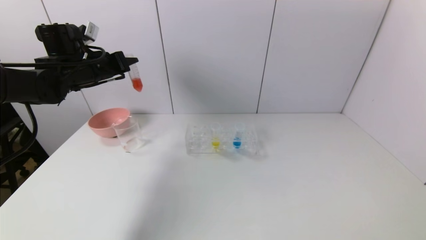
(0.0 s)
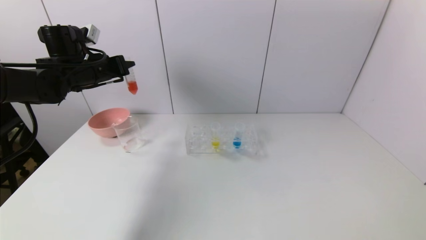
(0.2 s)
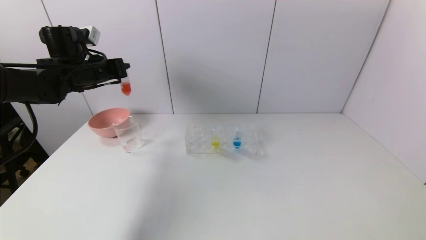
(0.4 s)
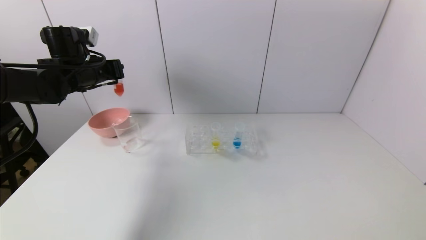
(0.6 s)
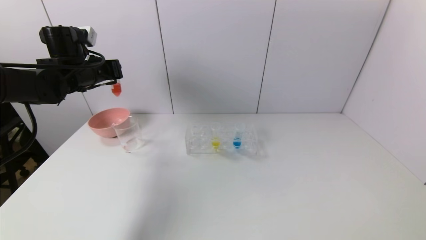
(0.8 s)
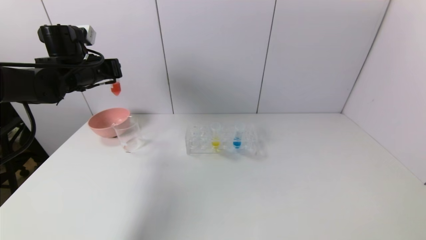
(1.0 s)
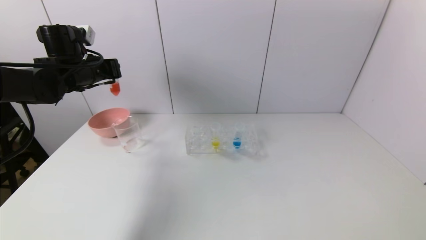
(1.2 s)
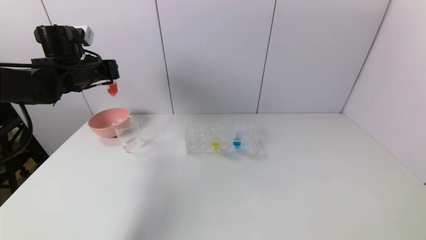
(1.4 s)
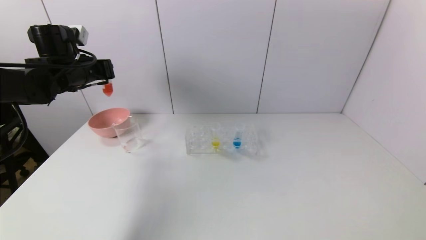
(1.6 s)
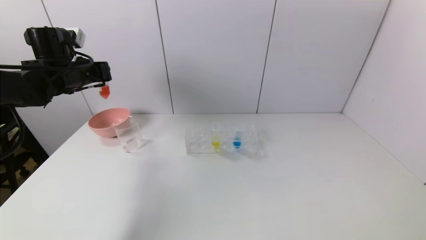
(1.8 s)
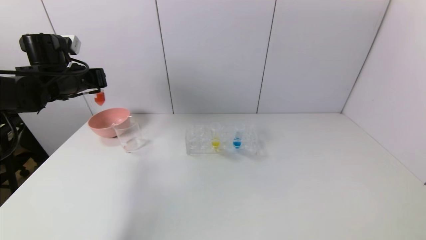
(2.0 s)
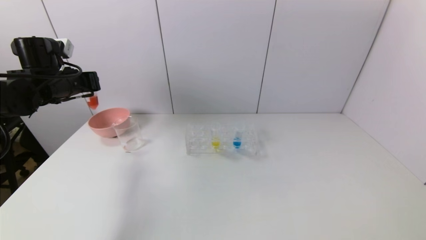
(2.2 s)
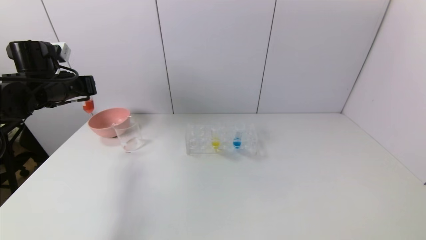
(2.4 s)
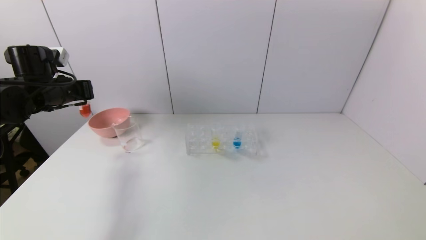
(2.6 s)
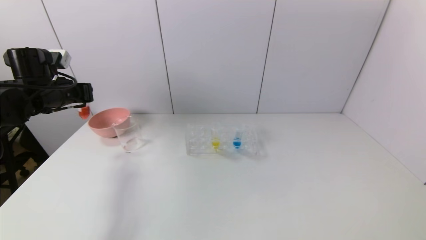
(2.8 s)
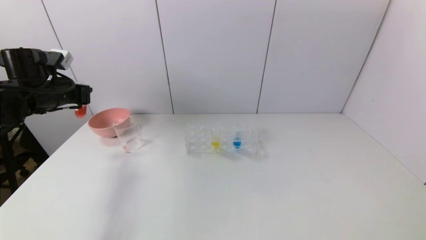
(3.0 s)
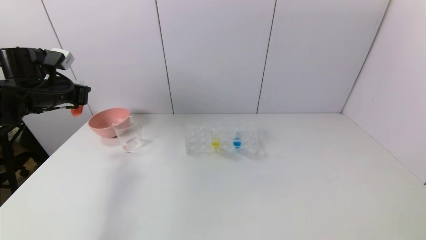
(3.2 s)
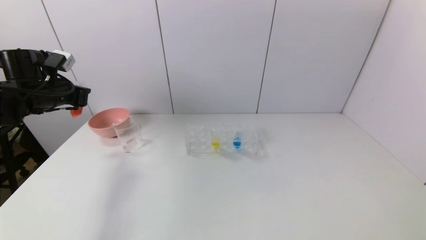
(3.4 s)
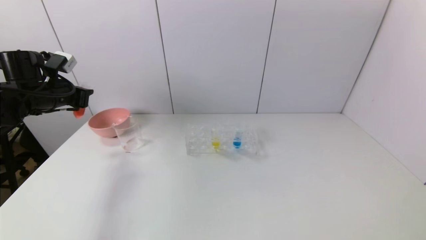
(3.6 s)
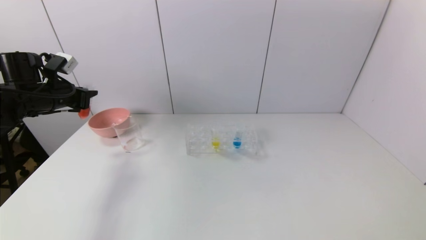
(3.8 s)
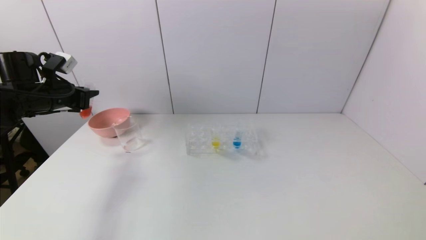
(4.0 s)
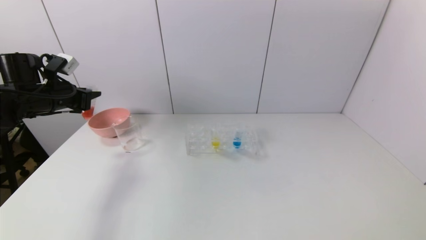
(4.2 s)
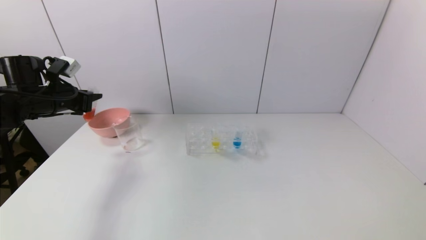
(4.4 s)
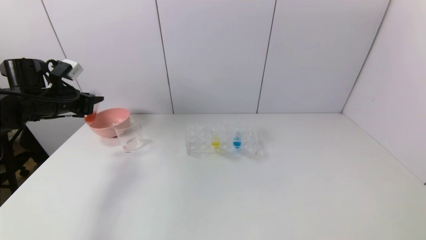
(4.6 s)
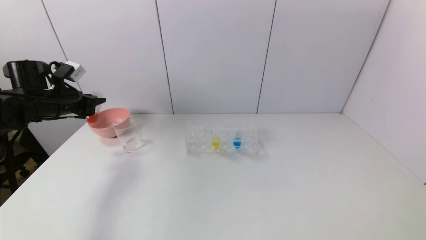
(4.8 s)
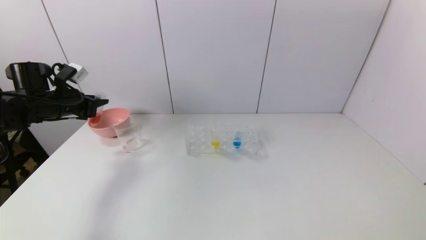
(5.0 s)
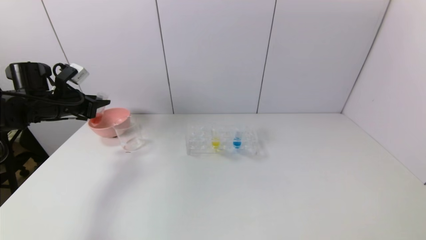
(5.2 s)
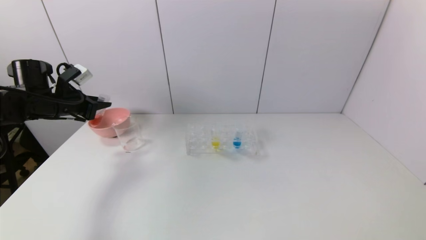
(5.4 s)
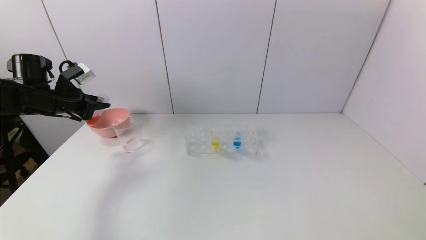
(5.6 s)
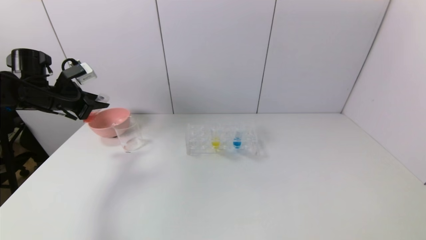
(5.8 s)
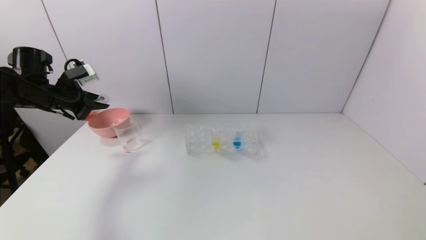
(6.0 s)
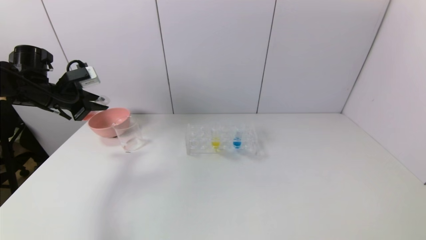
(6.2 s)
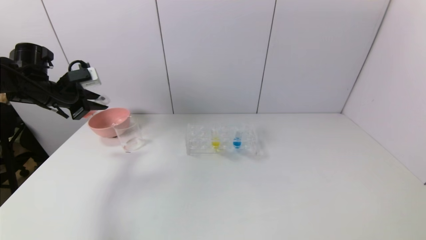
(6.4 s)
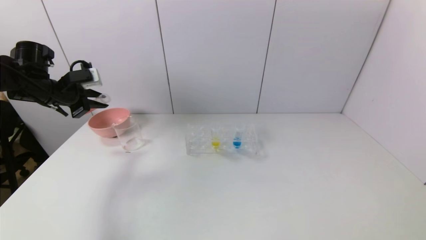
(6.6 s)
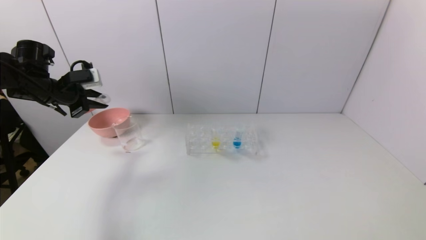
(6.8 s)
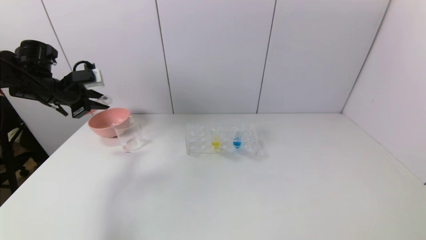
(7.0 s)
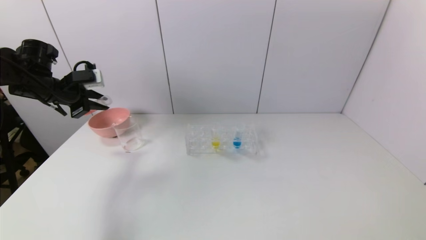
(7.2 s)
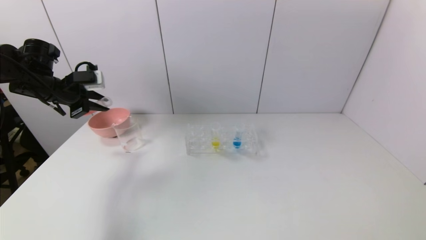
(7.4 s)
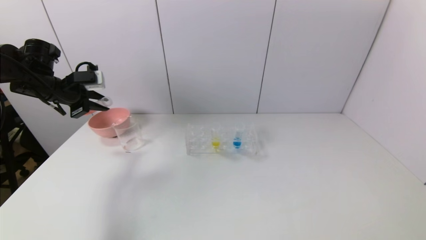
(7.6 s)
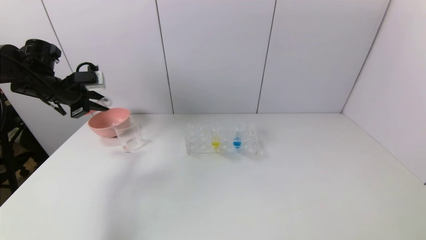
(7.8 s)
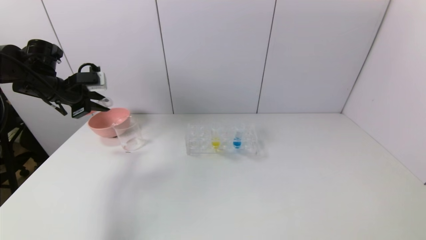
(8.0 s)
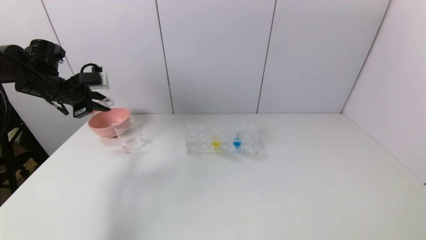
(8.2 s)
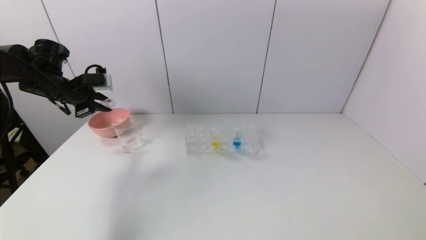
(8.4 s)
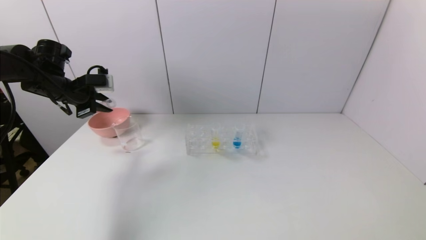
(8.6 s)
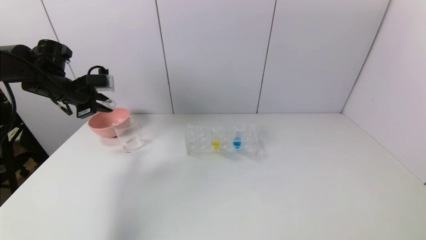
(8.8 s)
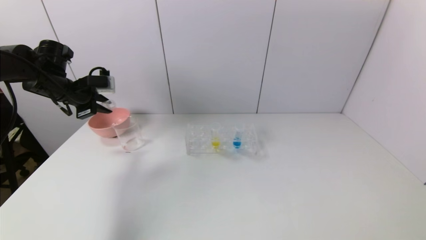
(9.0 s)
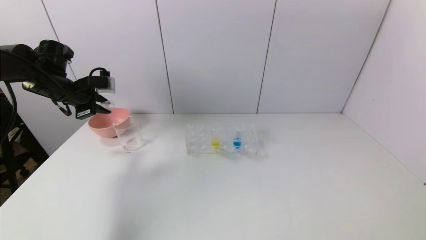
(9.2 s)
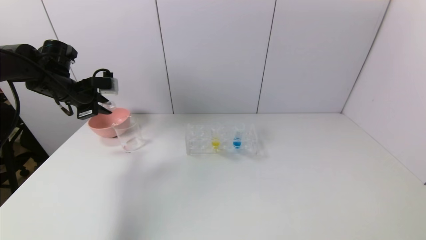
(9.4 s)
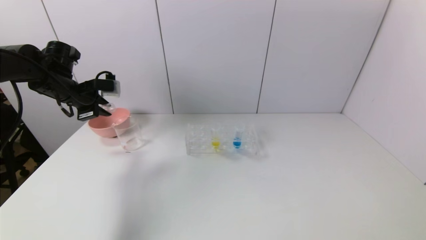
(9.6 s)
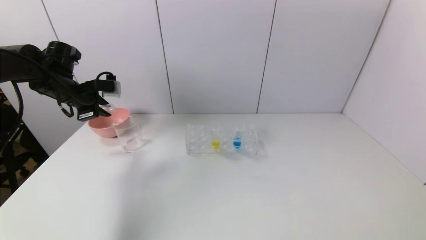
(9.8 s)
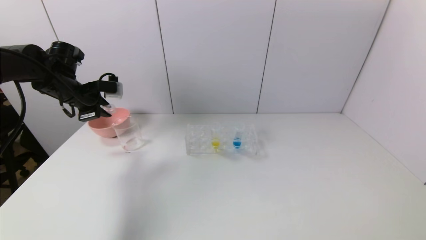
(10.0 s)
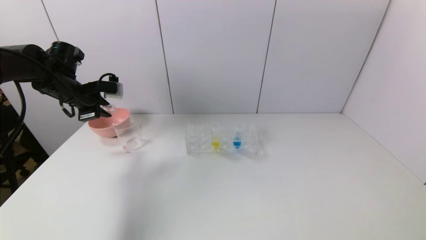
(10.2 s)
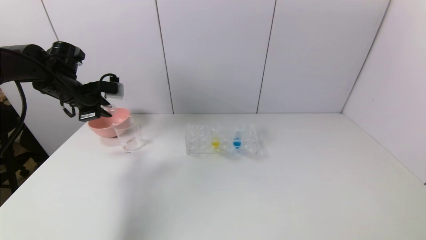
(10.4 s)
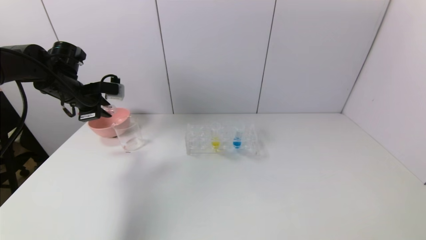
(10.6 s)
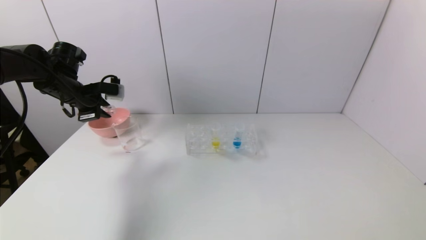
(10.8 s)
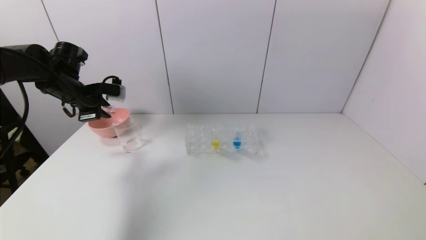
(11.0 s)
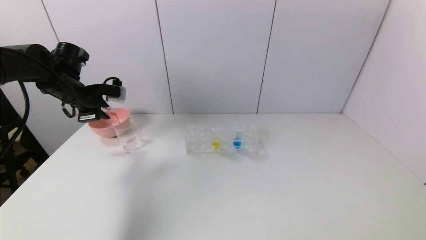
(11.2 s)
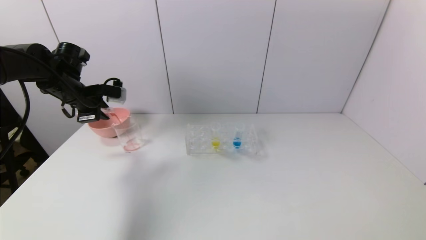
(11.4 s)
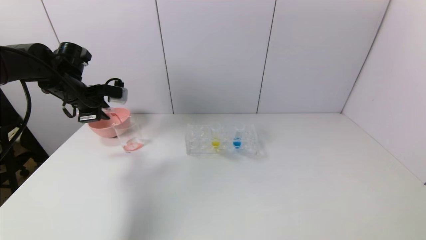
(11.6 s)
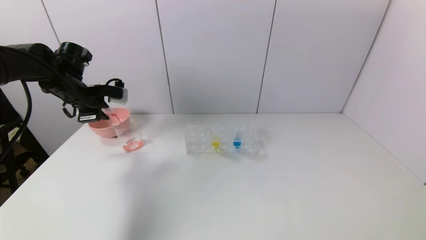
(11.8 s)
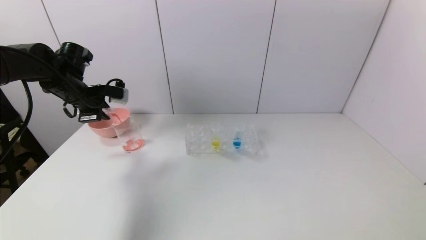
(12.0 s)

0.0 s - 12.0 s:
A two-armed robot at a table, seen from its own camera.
Task of the whole recording: pick up the test tube with red pigment and the test tube with blue pigment by grippers and pour them into the container.
1.6 s - 3.0 s: The left gripper travels to the left by approximately 5 cm.
3.0 s - 4.4 s: There are only small adjustments of the grippers.
7.6 s - 10.4 s: The grippers make only small movements.
10.4 s - 12.0 s: There are only small adjustments of the grippers.

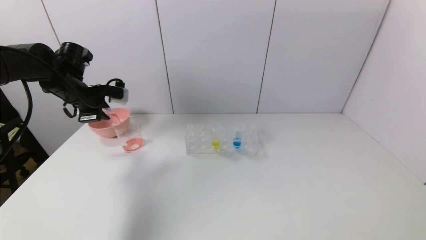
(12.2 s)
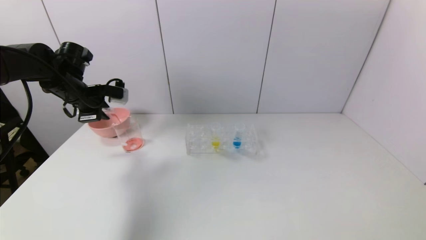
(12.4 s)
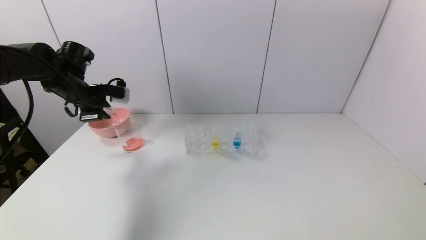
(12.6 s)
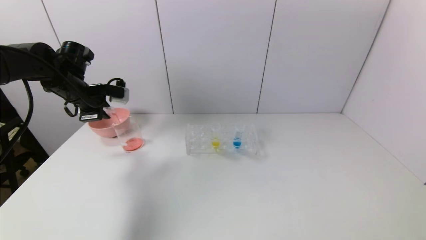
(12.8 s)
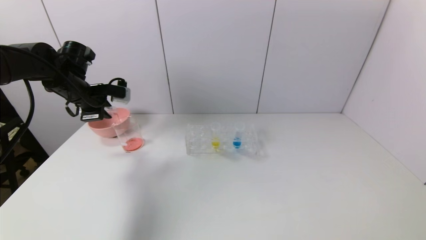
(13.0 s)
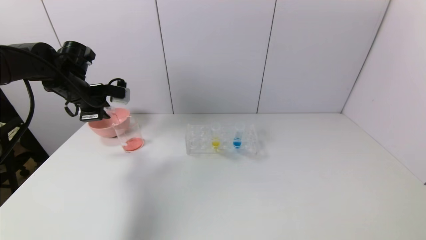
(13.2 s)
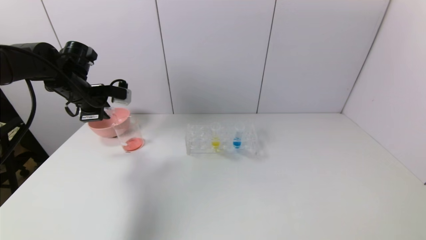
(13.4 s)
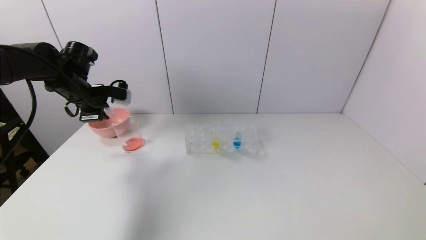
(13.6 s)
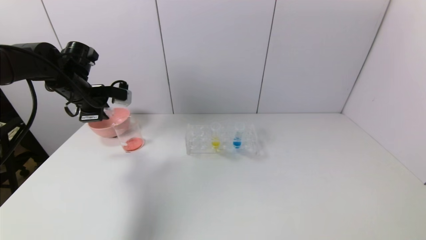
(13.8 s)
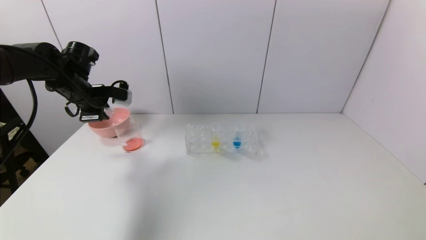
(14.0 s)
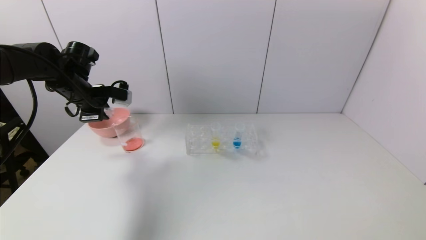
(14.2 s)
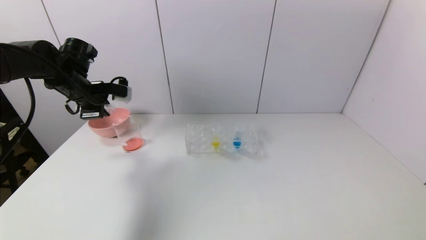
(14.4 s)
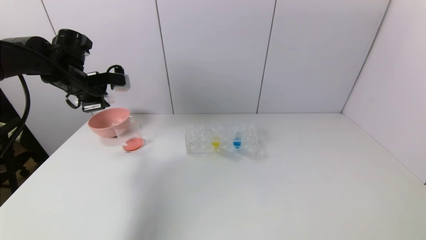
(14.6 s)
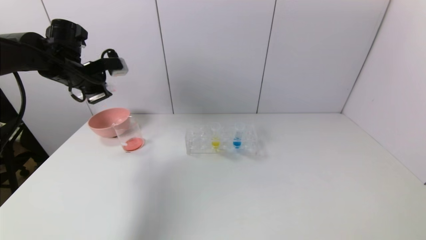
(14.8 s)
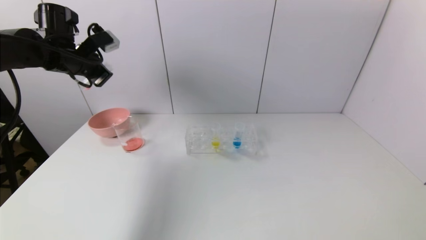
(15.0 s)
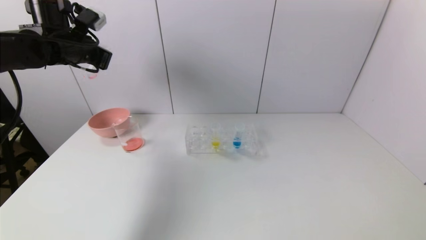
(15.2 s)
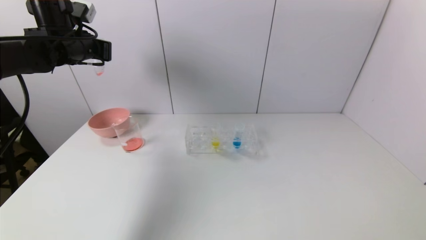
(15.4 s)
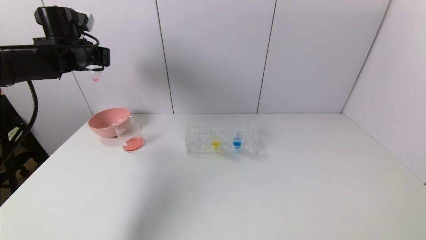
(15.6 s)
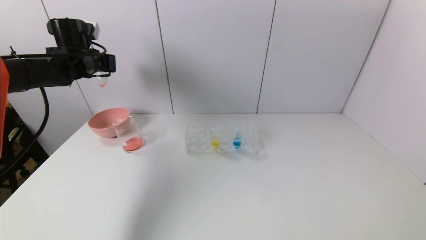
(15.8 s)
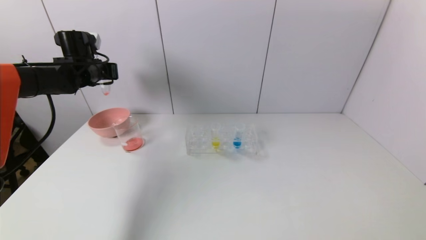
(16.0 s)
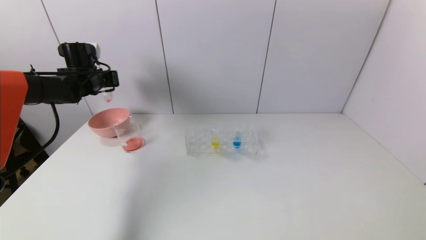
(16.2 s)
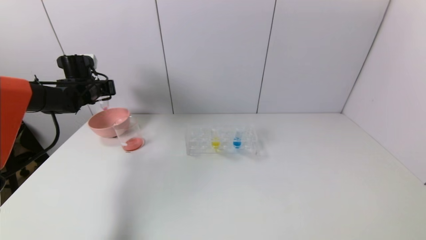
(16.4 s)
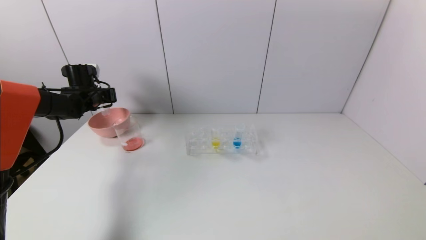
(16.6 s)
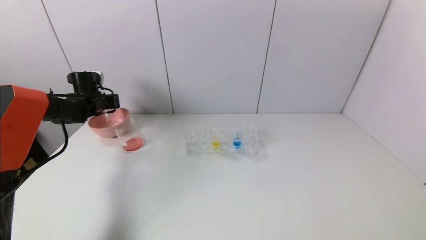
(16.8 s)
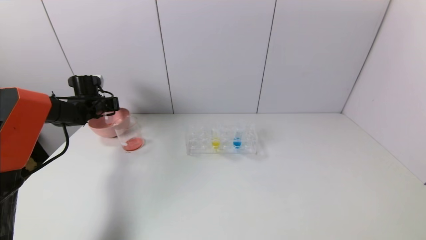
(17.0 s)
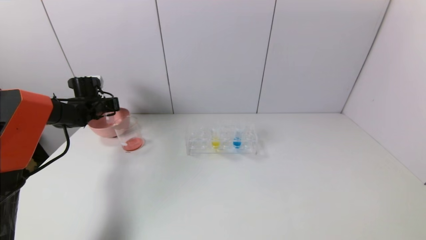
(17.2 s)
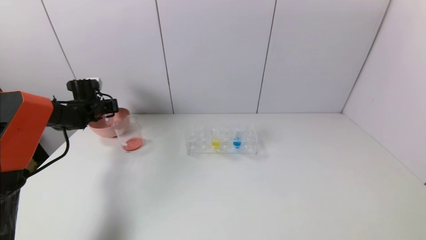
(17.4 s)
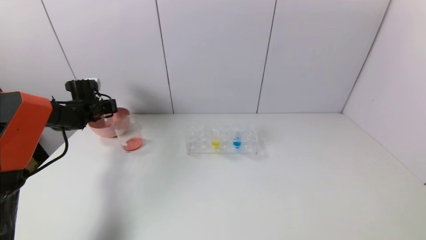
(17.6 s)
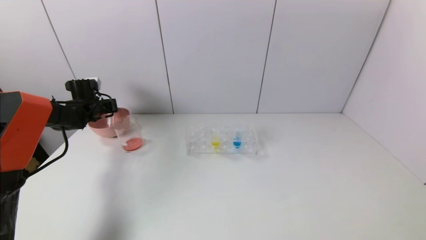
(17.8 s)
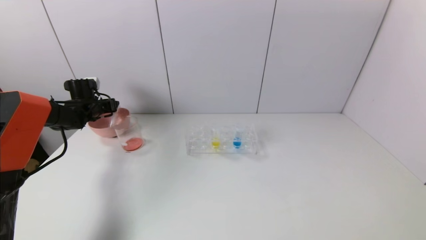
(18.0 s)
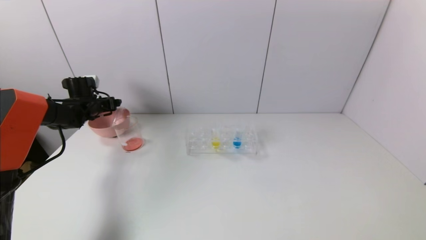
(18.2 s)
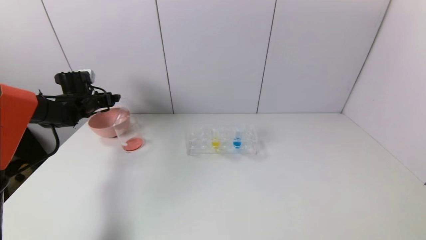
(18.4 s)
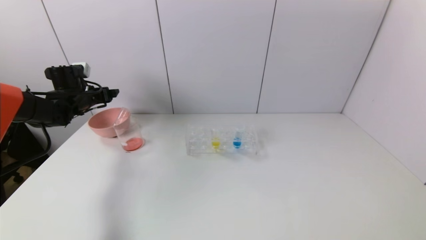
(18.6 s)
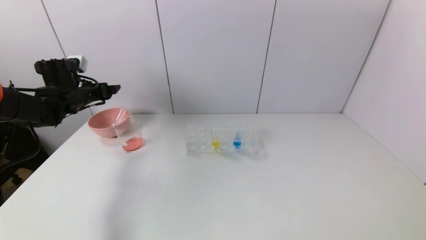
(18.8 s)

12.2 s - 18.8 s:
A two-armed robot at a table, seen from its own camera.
Task of the whole recording: pick up the test tube with red pigment and the test tube with blue pigment by grippers and pour them into the container.
Step, 12.2 s - 15.0 s: Pour the red reagent into the graduated cylinder with the left gripper.
12.2 s - 13.8 s: The two grippers keep their place.
13.8 s - 15.4 s: The left gripper is displaced upward by about 10 cm.
15.4 s - 17.2 s: The left gripper heads downward, covering roughly 20 cm.
17.2 s - 18.8 s: The left gripper is displaced backward and upward by about 10 cm, and opens.
